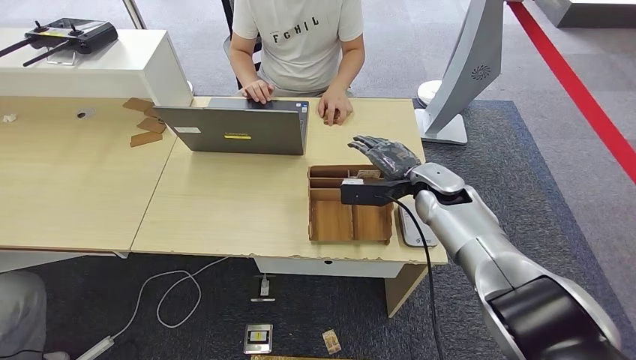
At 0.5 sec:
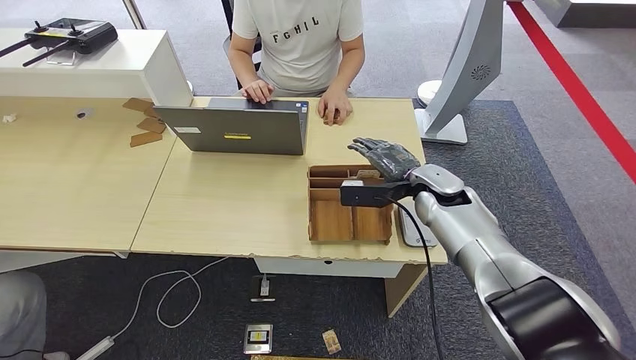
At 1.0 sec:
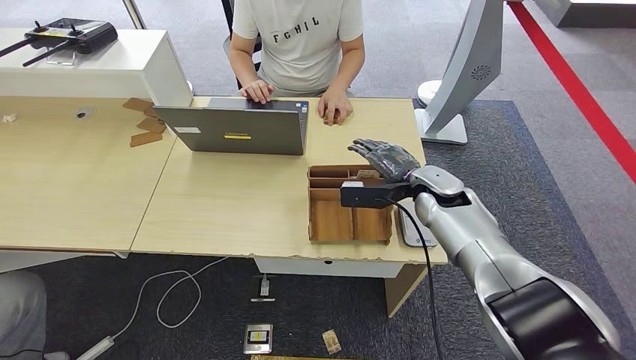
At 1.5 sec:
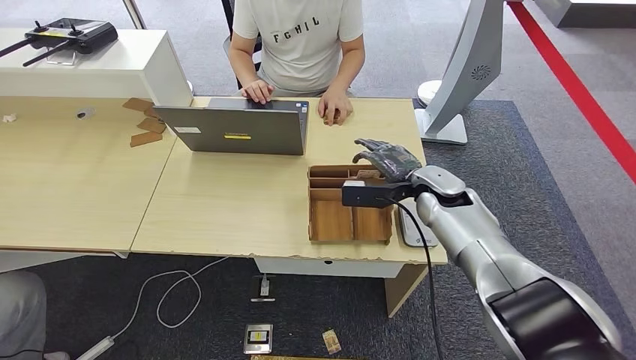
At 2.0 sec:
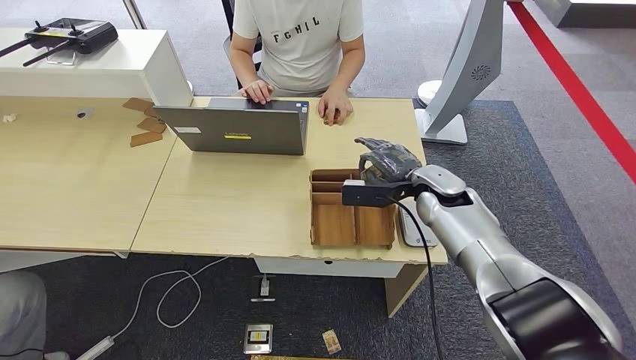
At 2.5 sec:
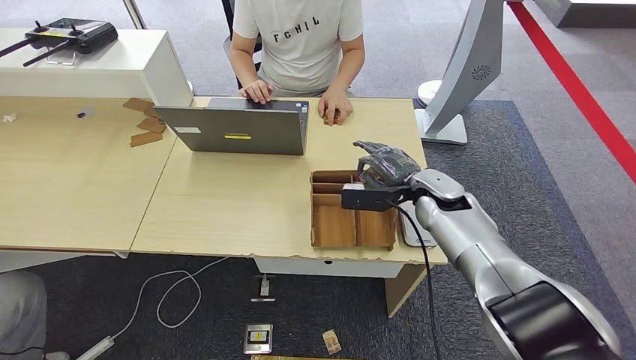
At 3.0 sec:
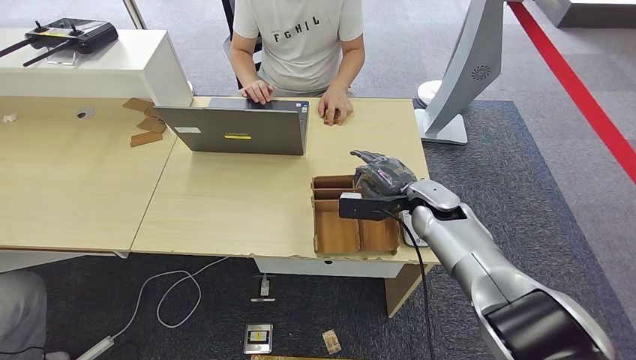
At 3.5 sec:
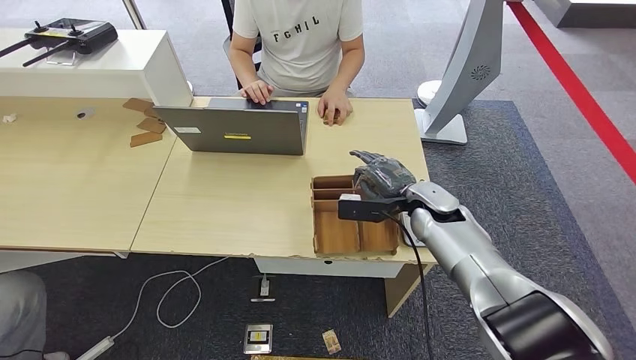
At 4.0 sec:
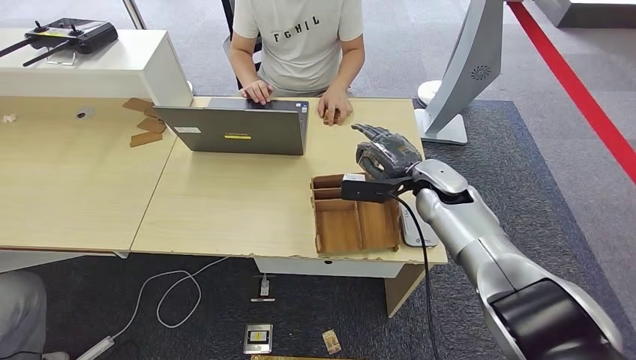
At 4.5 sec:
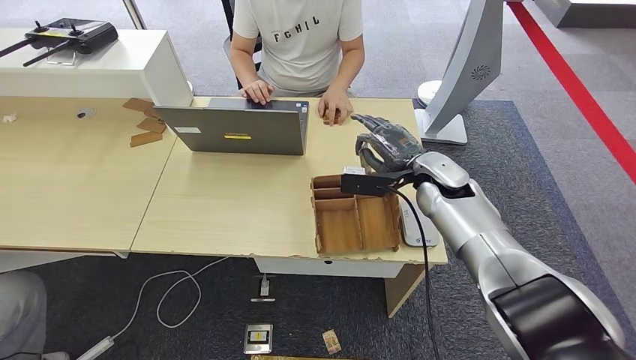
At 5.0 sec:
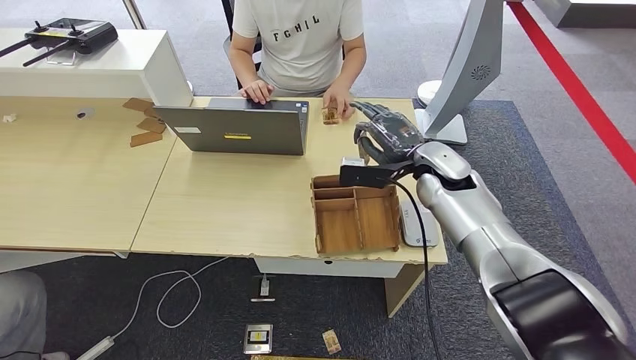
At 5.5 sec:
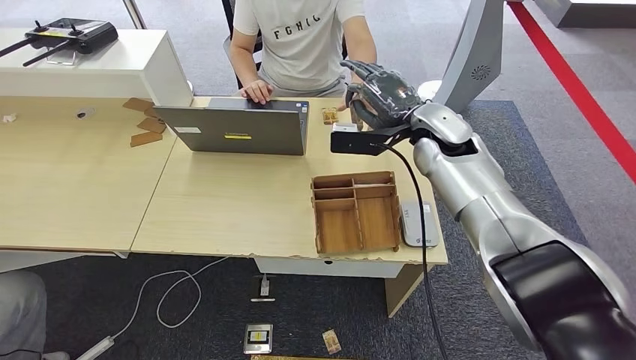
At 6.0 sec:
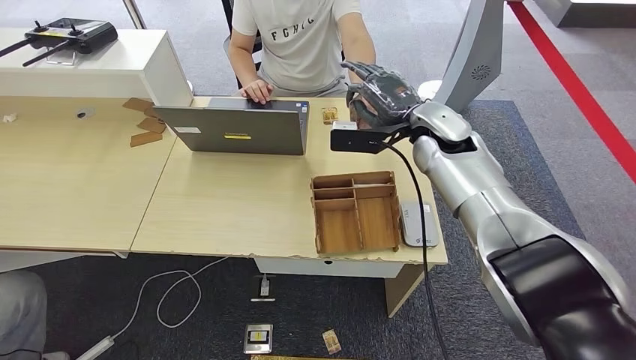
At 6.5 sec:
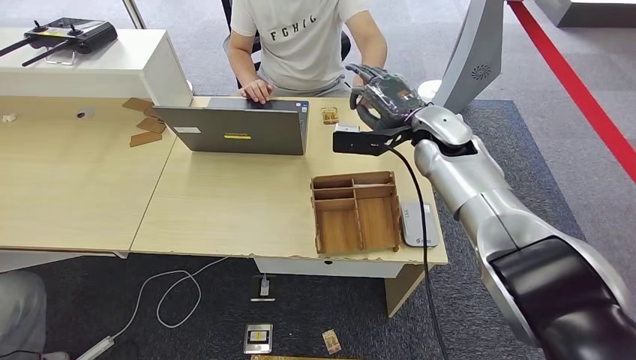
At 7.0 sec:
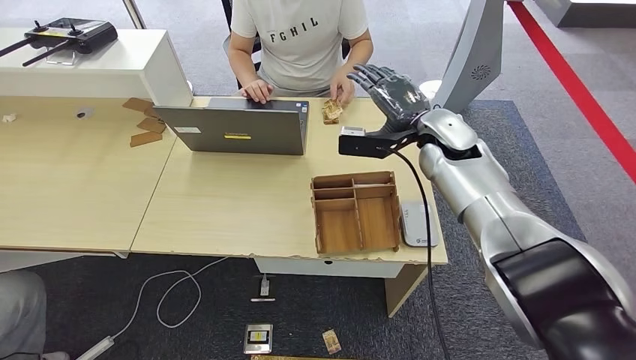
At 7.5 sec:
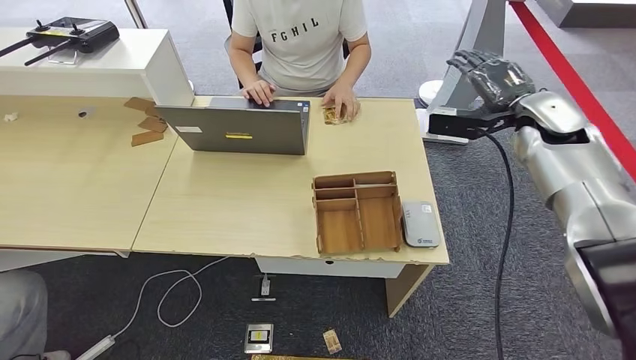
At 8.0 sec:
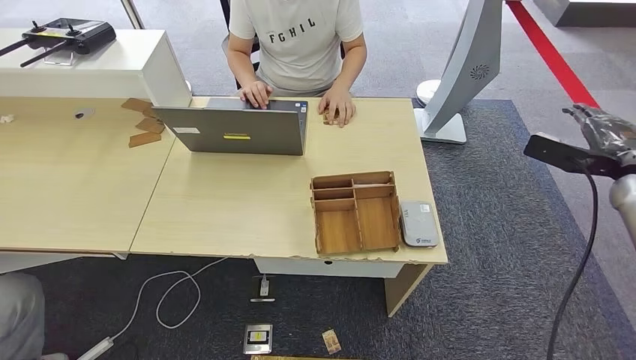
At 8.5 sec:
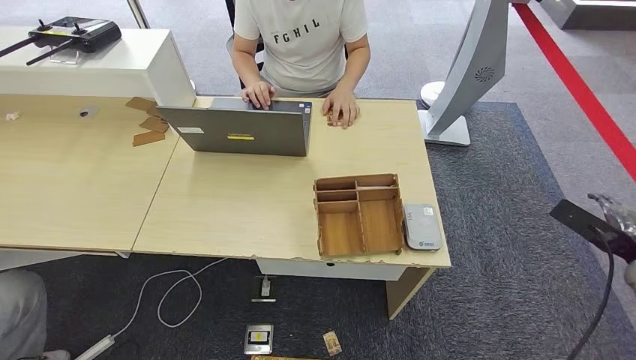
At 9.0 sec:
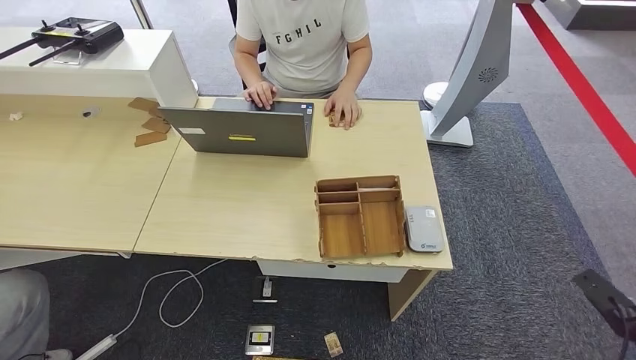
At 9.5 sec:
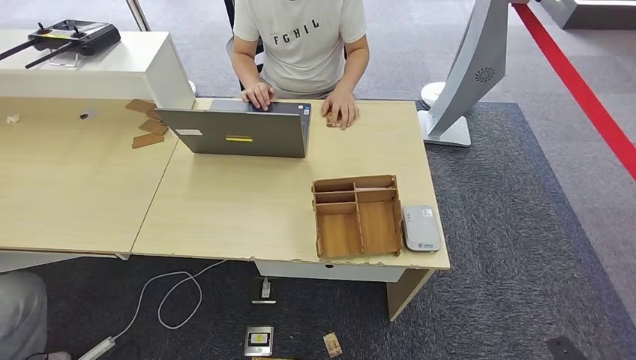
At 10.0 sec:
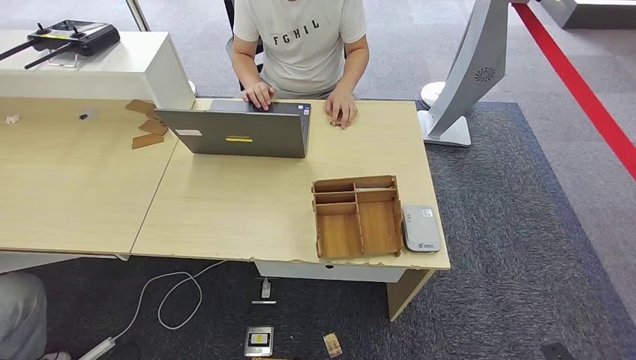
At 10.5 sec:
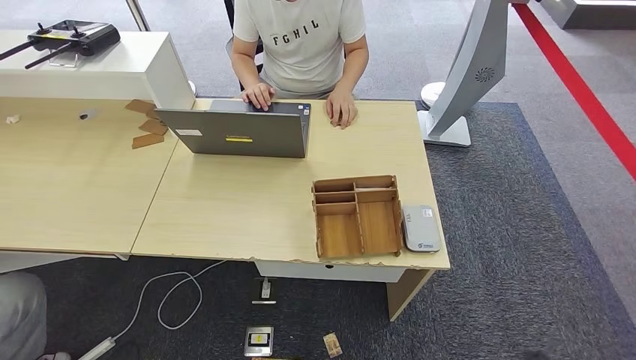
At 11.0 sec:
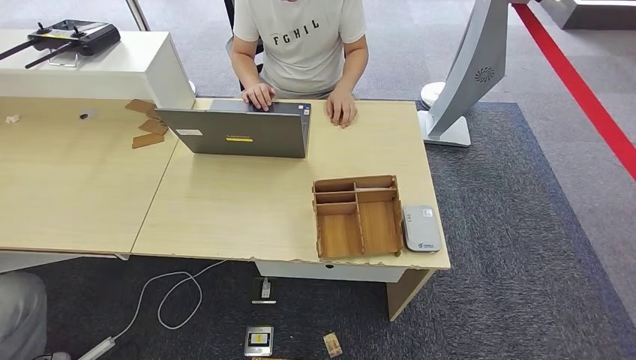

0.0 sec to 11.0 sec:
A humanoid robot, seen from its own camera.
Step, 0.0 sec to 3.5 sec: Pick up the room key from the key card box.
Step, 4.0 sec to 11.0 sec: Hand the room key to the person.
0.0 sec to 2.0 sec: Neither hand changes place.
2.0 sec to 3.5 sec: The hands make only small movements.
3.5 sec to 5.5 sec: The right hand goes approximately 15 cm upward.
7.5 sec to 9.0 sec: The right hand shifts about 40 cm backward, downward and to the right.
9.0 sec to 11.0 sec: The right hand goes roughly 25 cm to the left, downward and backward.
